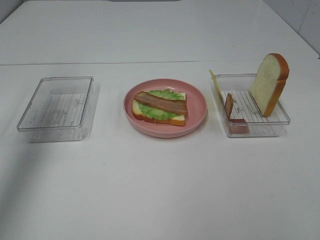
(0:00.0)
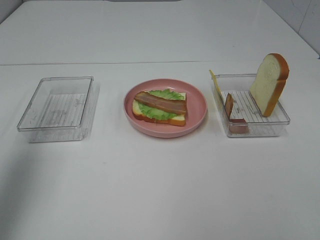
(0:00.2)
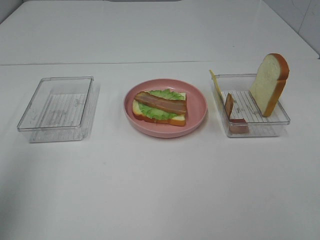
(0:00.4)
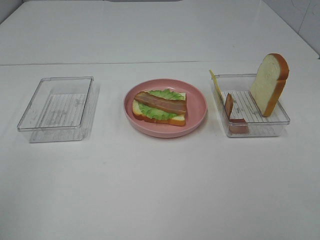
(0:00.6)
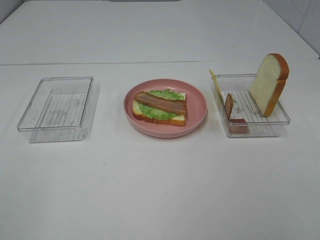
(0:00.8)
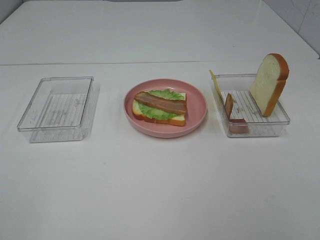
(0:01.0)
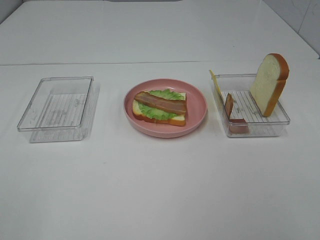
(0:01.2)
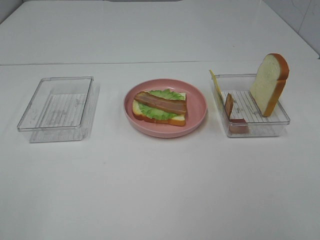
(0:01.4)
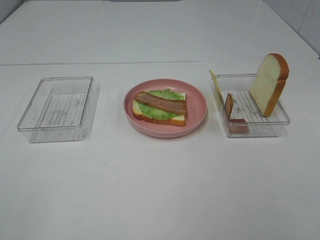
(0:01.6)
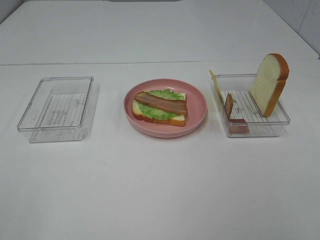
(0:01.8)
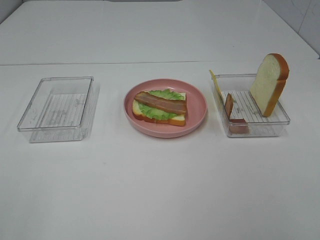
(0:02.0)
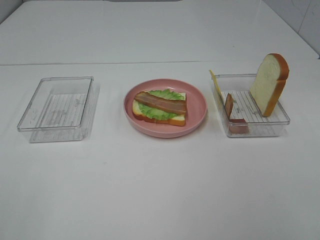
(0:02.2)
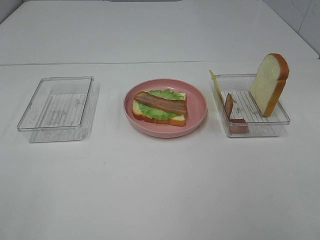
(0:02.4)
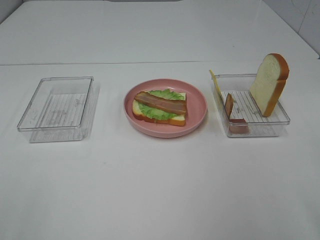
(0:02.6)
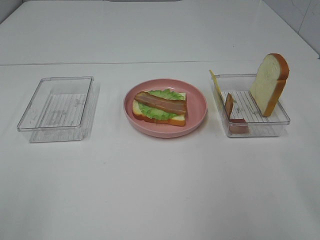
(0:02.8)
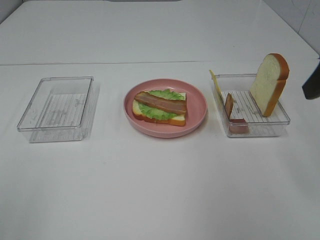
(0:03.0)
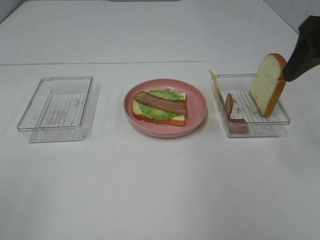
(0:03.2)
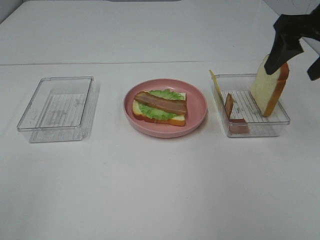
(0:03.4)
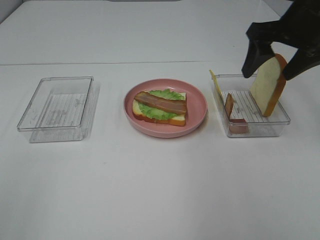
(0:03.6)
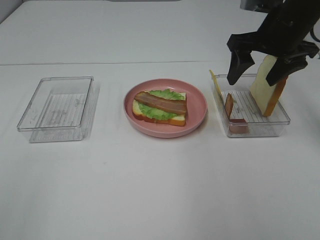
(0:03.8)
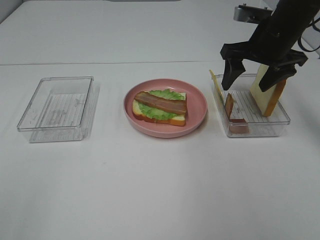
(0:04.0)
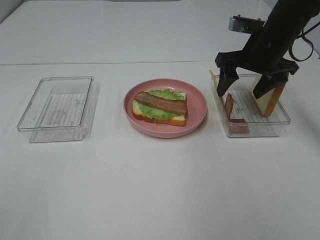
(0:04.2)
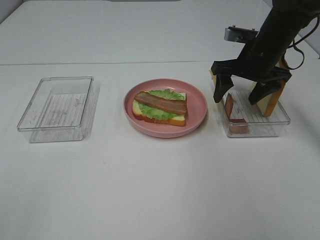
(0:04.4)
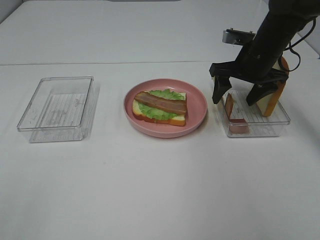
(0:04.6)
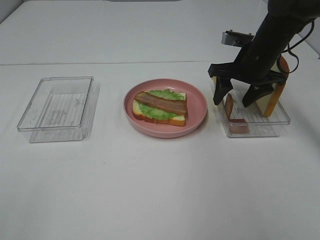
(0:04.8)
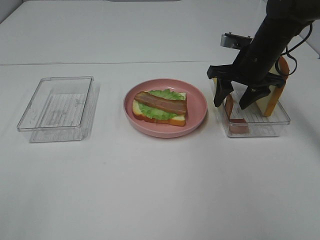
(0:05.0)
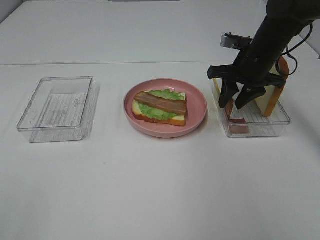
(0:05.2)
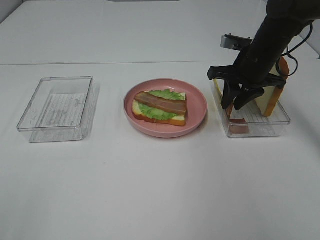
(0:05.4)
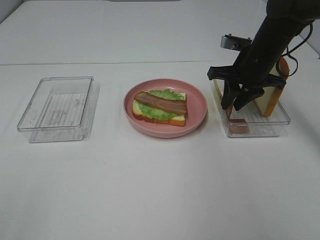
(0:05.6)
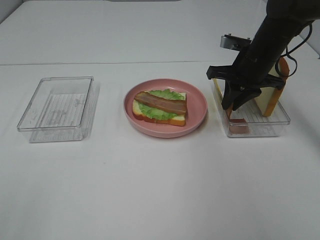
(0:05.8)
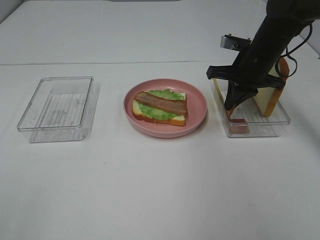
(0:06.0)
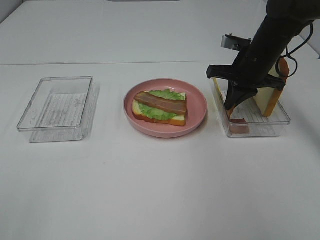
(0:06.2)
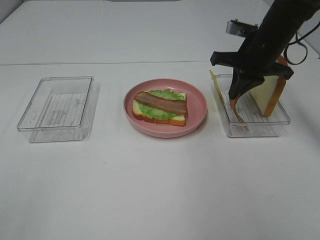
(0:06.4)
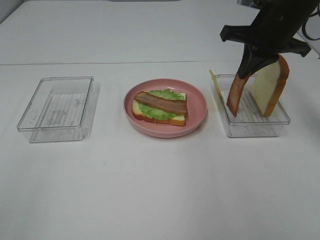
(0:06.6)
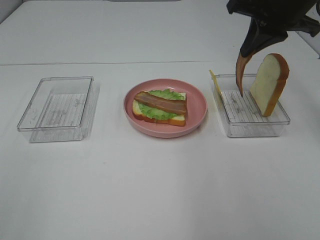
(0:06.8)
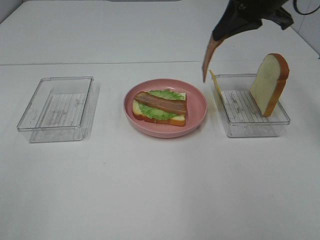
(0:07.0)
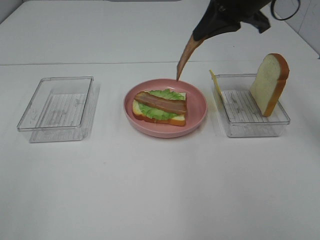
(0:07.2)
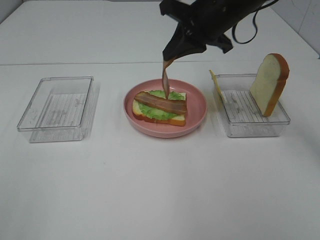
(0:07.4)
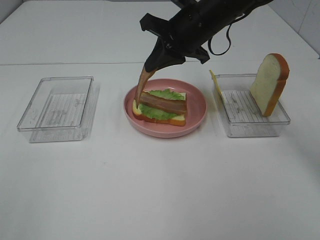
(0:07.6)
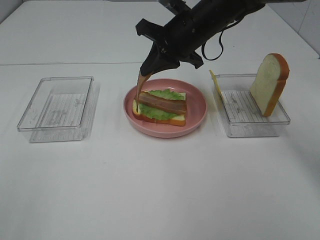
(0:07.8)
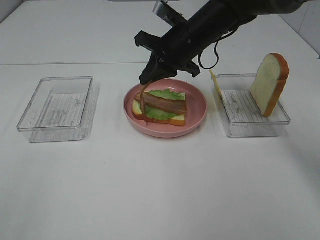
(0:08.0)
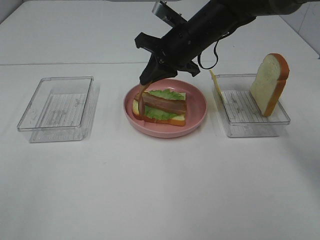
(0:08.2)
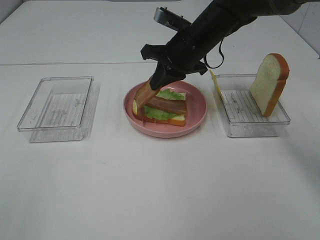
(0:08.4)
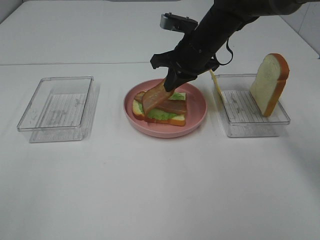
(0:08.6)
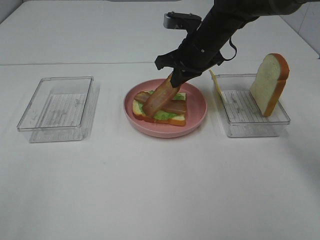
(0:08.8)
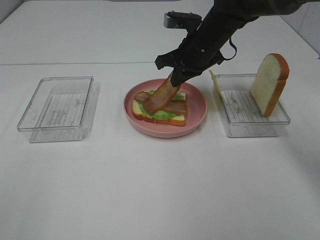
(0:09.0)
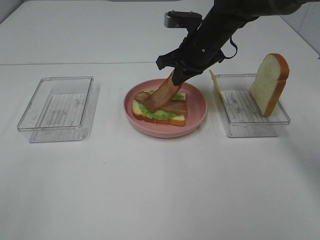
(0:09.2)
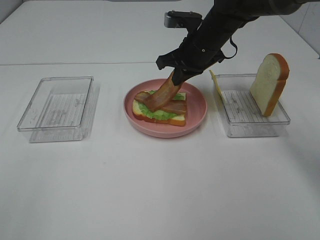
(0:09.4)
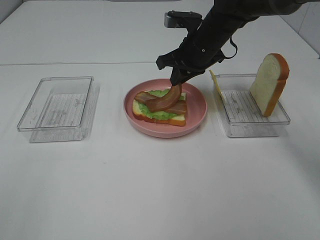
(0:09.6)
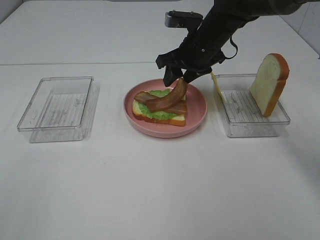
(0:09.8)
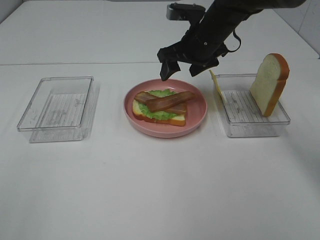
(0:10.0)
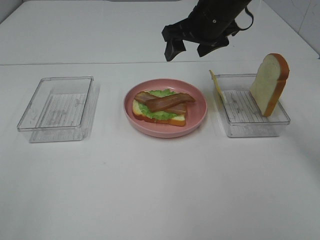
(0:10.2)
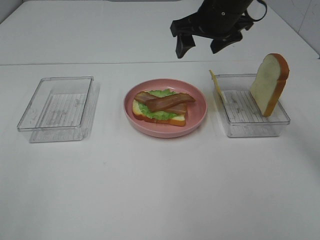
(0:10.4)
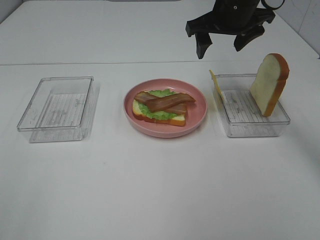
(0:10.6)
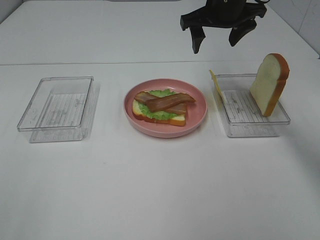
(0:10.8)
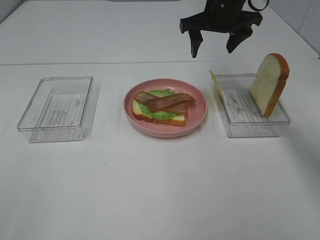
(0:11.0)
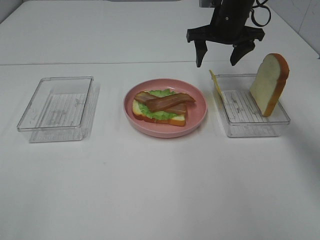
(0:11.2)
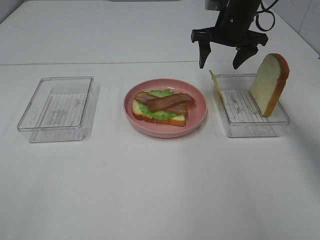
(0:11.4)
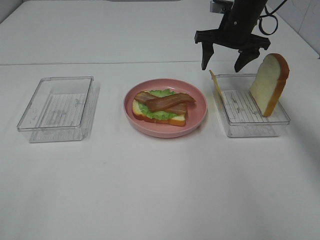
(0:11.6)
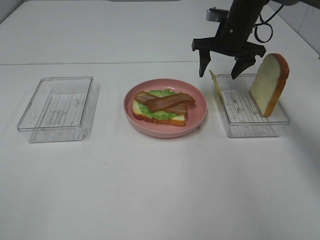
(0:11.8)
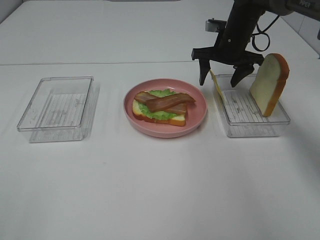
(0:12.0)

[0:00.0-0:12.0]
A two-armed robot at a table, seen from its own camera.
Task of the whole recording: Make sandwiches.
Step, 0:00.0 to 0:05.8: Right hand:grab the bacon.
Step, 0:06.0 to 0:10.0: Right hand:place bacon on bacon.
0:00.0 to 0:01.6: The left gripper heads backward, covering approximately 35 cm.
0:03.0 to 0:04.4: The right gripper travels forward and downward by some 25 cm.
0:04.4 to 0:06.0: The right gripper closes.
0:06.0 to 0:07.6: The right gripper is displaced to the left and upward by approximately 15 cm.
0:07.6 to 0:09.0: The right gripper moves approximately 5 cm.
0:09.0 to 0:10.4: The right gripper travels upward by some 10 cm, and opens.
0:10.4 to 0:12.0: The right gripper shifts roughly 15 cm downward and forward.

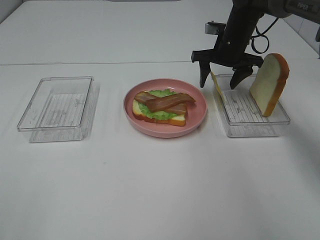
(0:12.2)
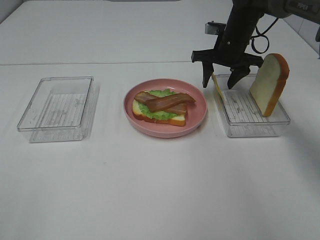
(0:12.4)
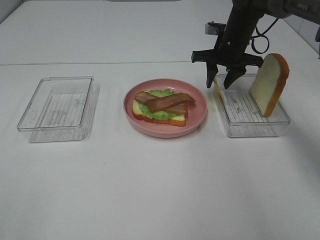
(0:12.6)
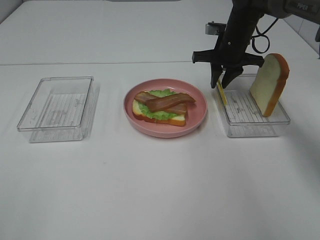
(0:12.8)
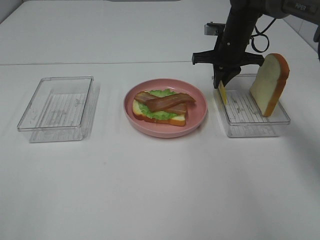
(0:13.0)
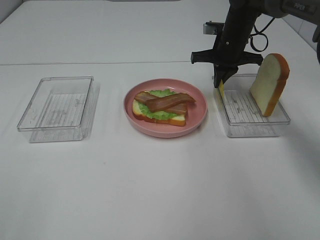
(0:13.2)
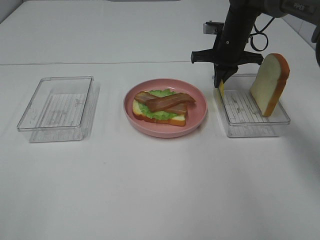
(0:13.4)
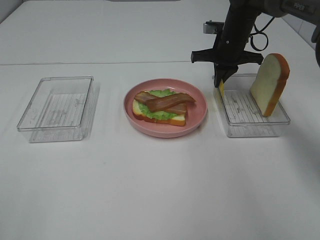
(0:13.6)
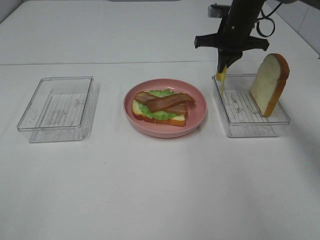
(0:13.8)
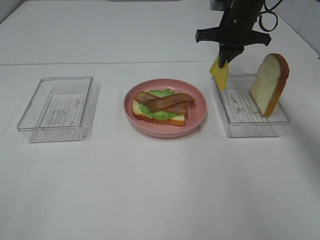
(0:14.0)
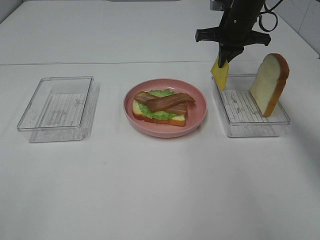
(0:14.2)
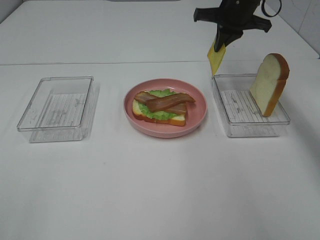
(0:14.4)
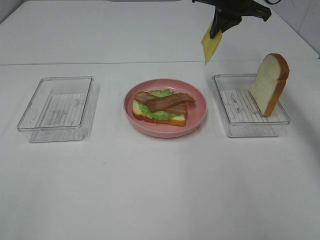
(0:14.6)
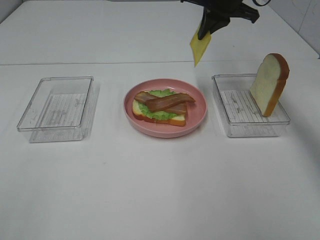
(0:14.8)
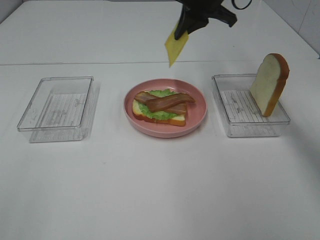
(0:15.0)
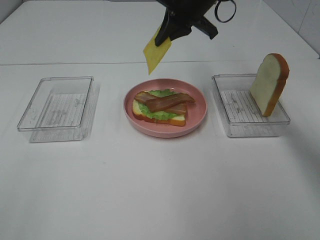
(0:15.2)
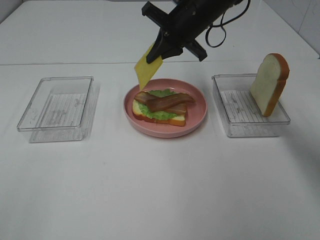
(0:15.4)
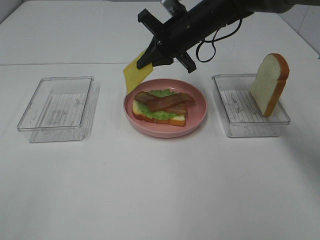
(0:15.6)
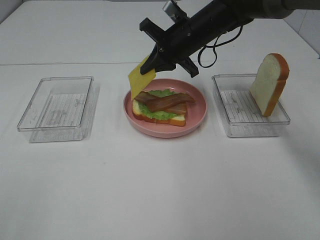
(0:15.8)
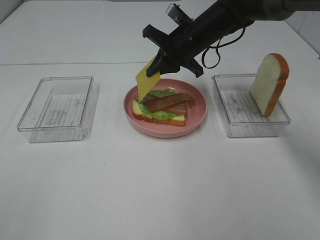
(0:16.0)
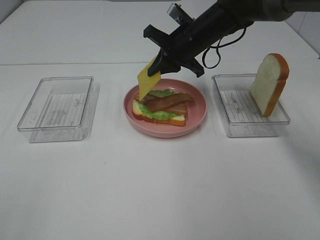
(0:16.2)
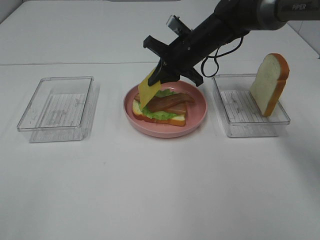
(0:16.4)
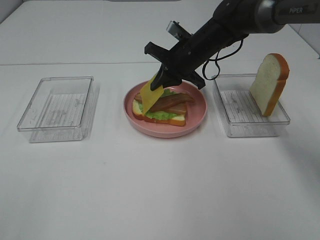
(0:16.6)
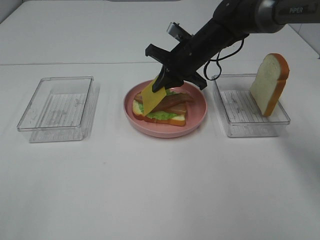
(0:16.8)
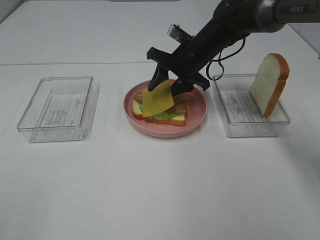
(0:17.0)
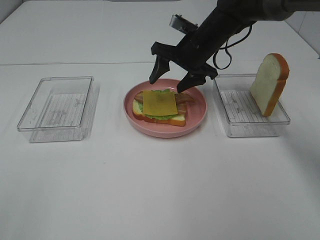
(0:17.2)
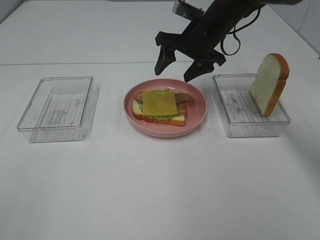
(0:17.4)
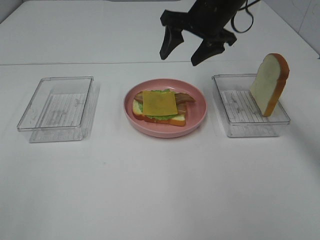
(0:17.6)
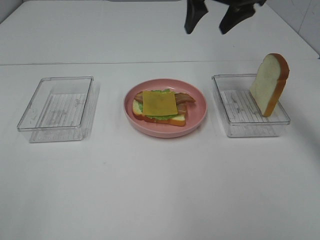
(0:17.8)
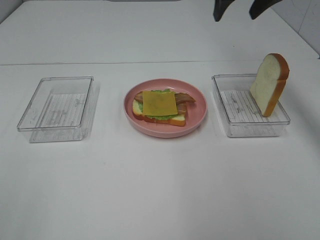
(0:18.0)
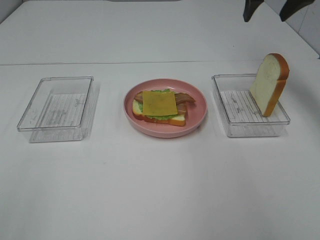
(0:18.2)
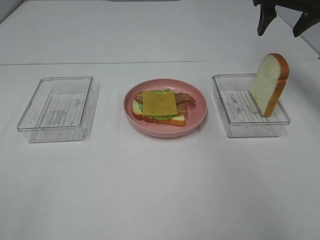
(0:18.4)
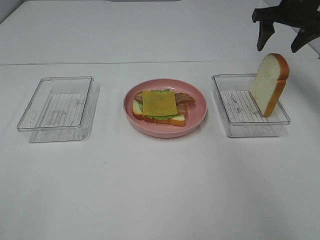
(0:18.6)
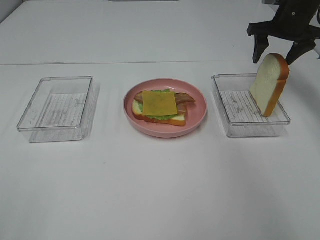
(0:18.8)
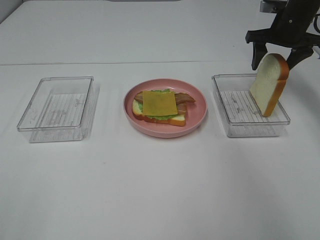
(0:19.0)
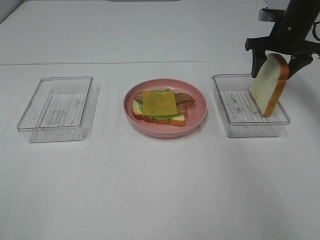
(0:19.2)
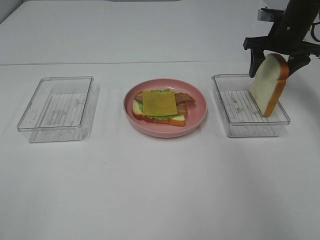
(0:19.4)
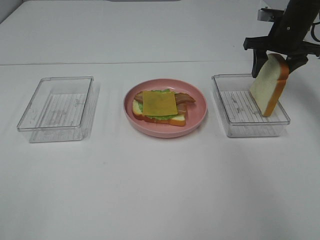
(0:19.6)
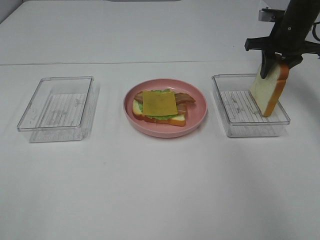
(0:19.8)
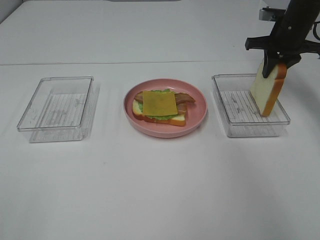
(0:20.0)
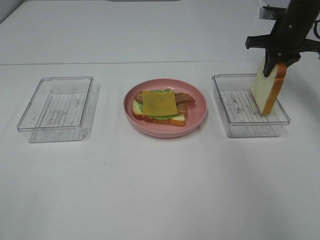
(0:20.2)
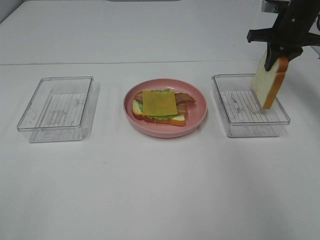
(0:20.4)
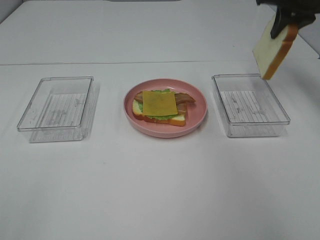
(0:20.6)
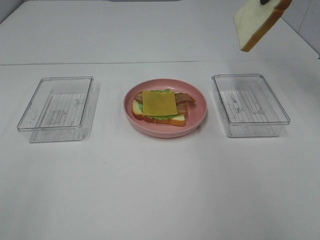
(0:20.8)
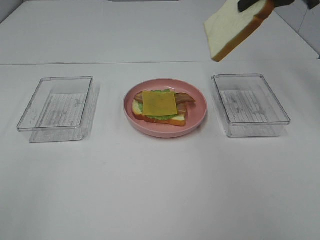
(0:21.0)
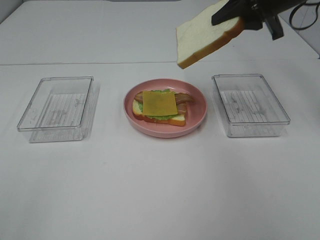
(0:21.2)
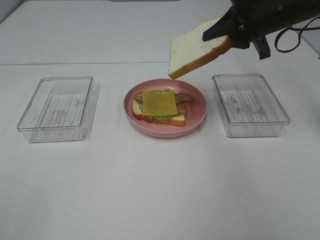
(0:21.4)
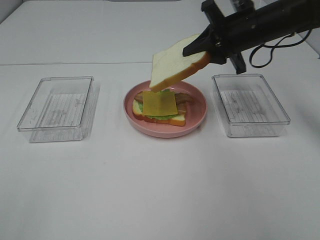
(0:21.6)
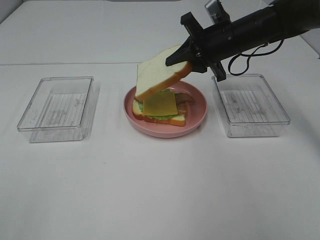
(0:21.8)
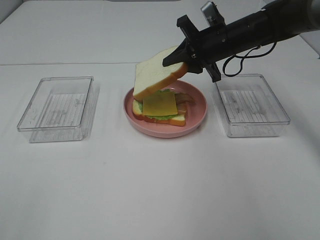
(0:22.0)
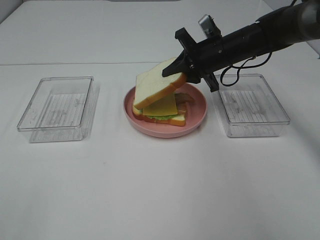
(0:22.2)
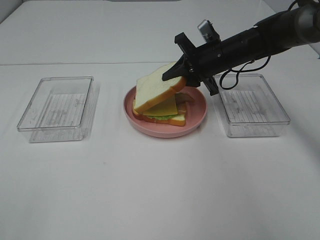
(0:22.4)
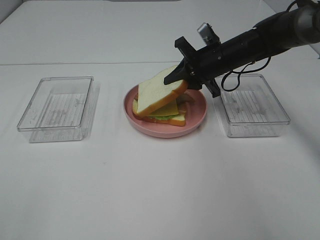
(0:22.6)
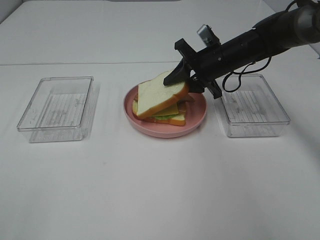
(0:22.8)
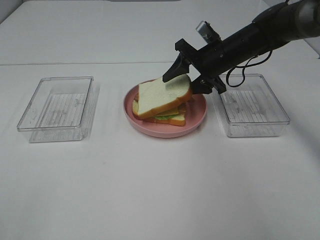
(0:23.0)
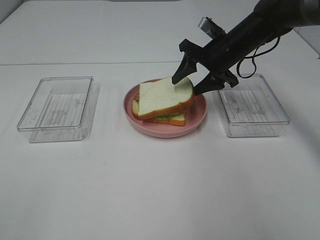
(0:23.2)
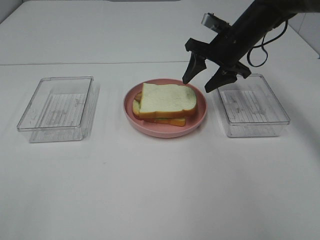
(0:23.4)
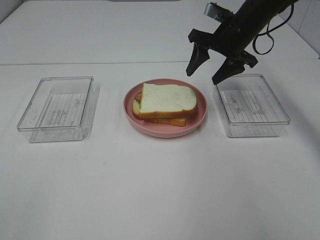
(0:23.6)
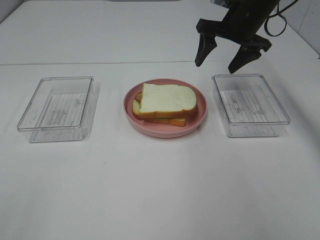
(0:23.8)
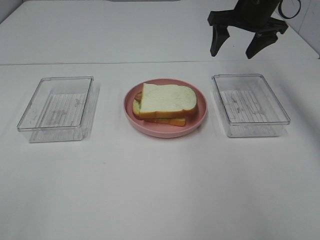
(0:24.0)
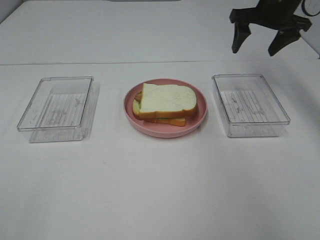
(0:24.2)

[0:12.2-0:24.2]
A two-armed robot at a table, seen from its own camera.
Task of the whole recording: Make sandwiches.
Step, 0:13.4 to 0:17.4: Right hand:place the cheese slice on top of the bacon.
Step, 0:17.6 to 0:20.2: Right hand:grab the bread slice.
Step, 0:20.4 to 0:23.6: Right hand:place the bread slice on the cheese slice.
0:12.2 to 0:13.8: The right gripper closes its fingers.
0:13.8 to 0:15.2: The right gripper heads to the left and upward, covering approximately 10 cm.
0:15.2 to 0:16.6: The right gripper is displaced downward by some 10 cm.
0:16.6 to 0:18.2: The right gripper heads upward and to the right, covering roughly 25 cm, and opens its fingers.
0:18.2 to 0:19.8: The right gripper shifts approximately 10 cm downward, and closes up.
0:19.8 to 0:21.2: The right gripper goes roughly 15 cm backward, upward and to the left.
0:21.2 to 0:22.6: The right gripper travels downward and to the left by approximately 15 cm.
0:22.6 to 0:24.2: The right gripper heads upward and to the right, covering roughly 15 cm, and opens.
